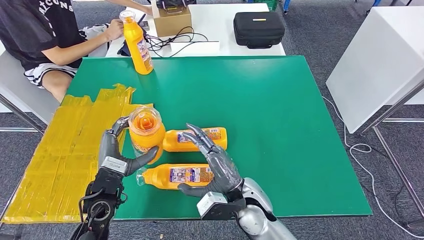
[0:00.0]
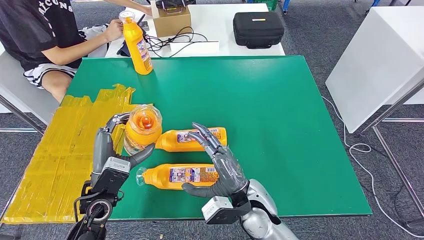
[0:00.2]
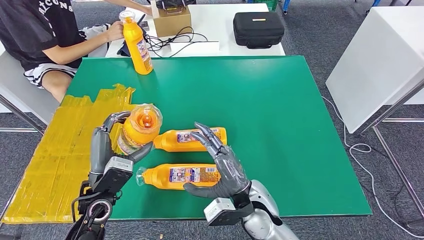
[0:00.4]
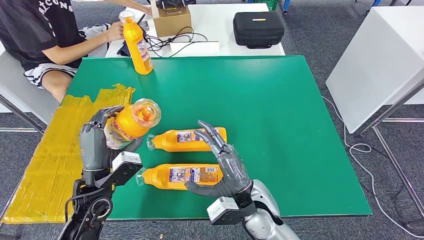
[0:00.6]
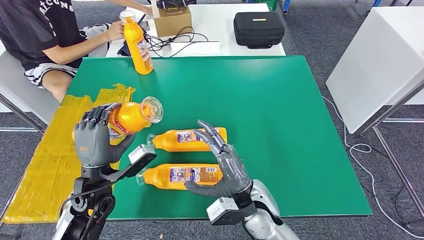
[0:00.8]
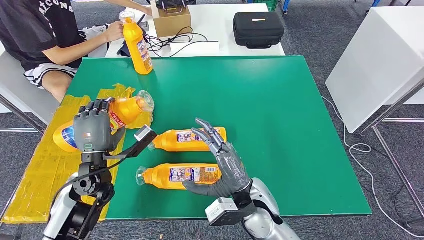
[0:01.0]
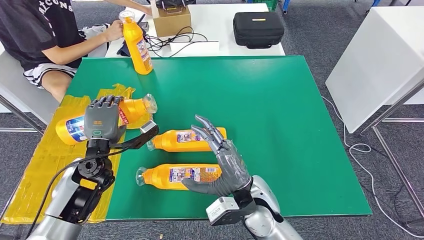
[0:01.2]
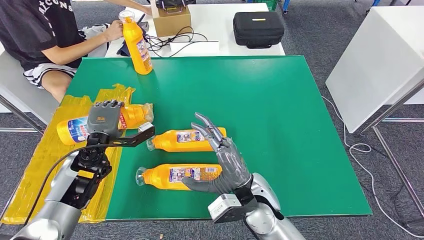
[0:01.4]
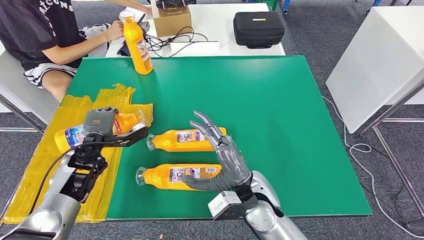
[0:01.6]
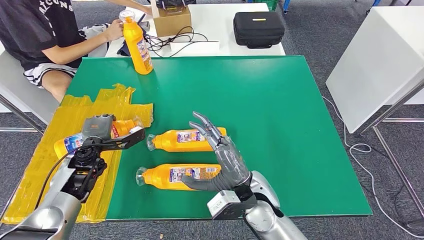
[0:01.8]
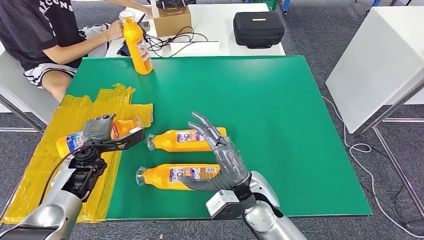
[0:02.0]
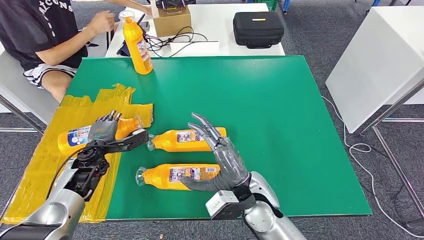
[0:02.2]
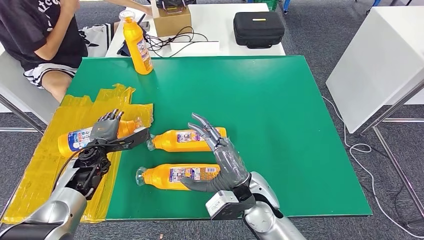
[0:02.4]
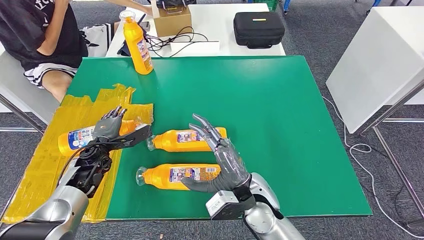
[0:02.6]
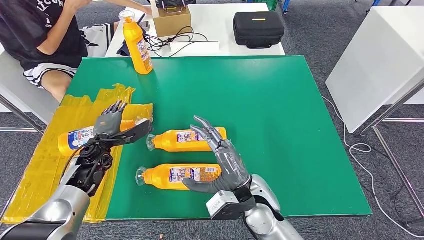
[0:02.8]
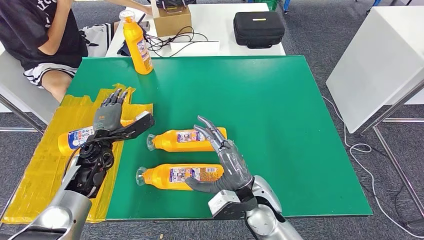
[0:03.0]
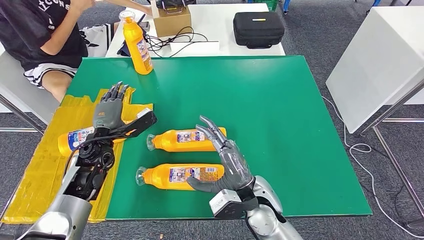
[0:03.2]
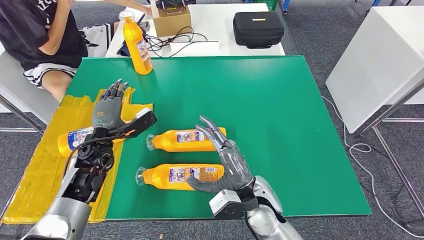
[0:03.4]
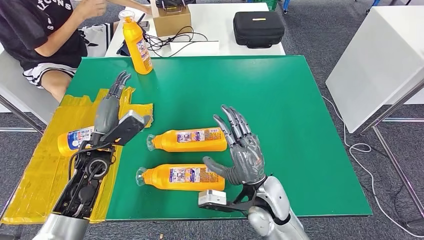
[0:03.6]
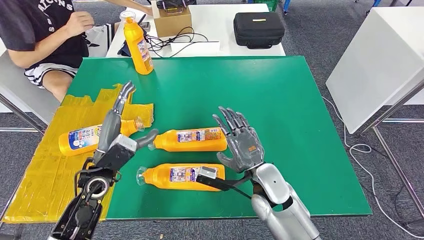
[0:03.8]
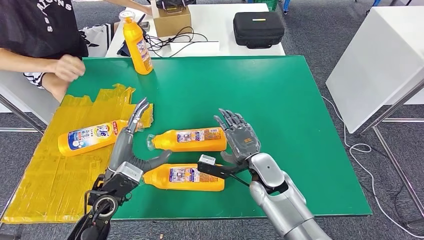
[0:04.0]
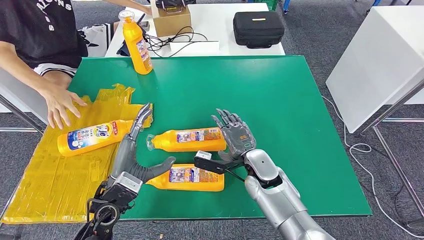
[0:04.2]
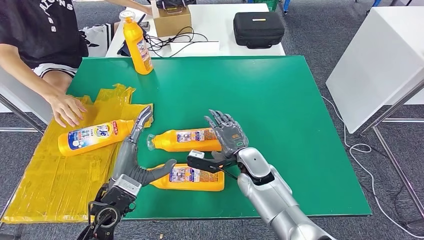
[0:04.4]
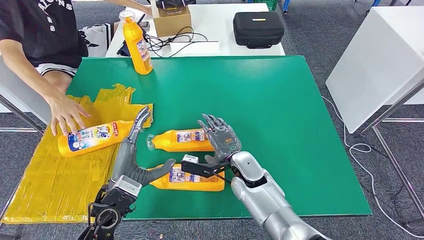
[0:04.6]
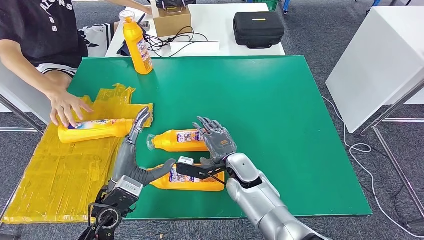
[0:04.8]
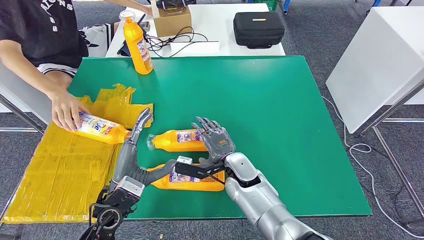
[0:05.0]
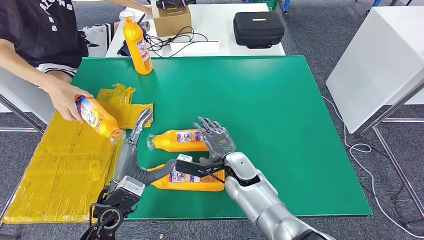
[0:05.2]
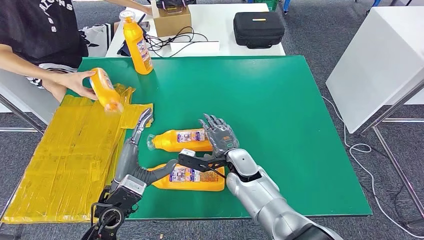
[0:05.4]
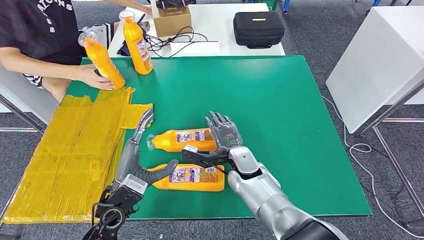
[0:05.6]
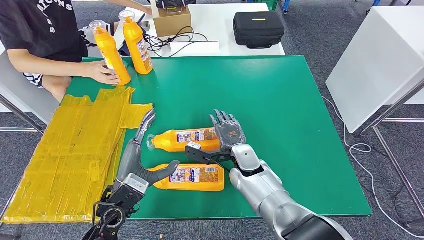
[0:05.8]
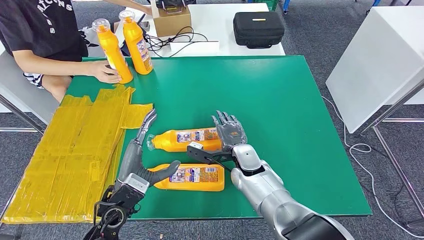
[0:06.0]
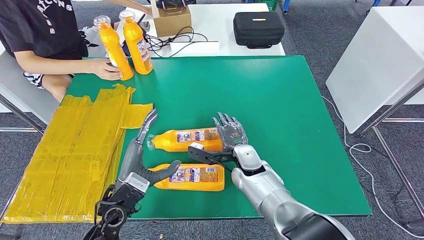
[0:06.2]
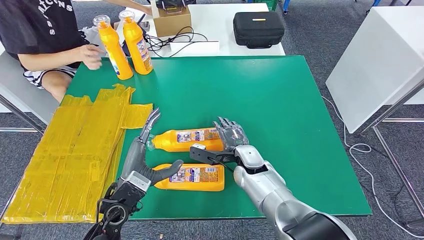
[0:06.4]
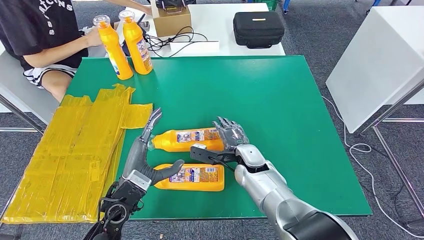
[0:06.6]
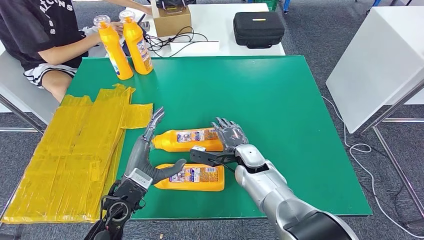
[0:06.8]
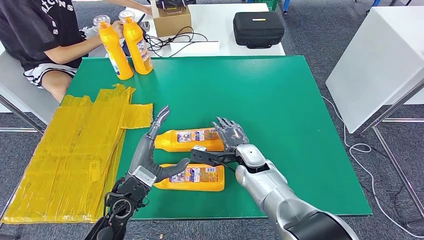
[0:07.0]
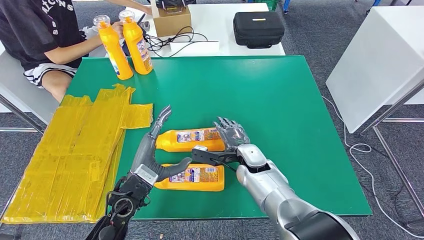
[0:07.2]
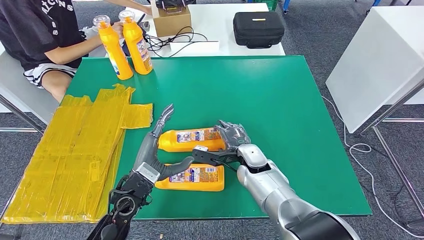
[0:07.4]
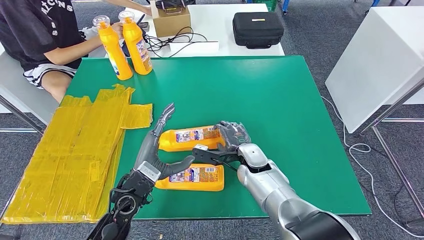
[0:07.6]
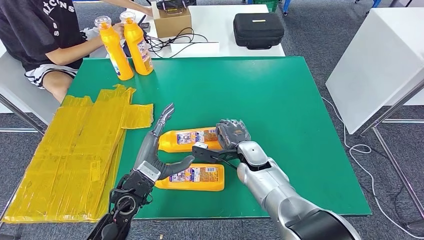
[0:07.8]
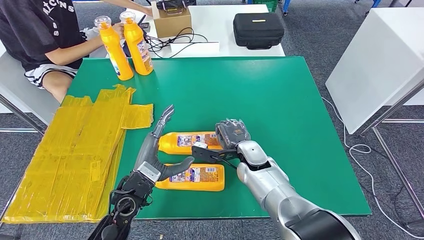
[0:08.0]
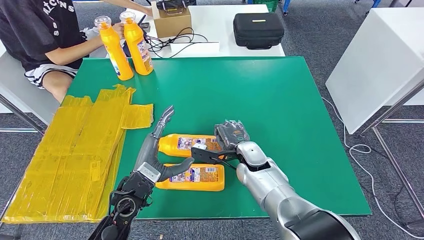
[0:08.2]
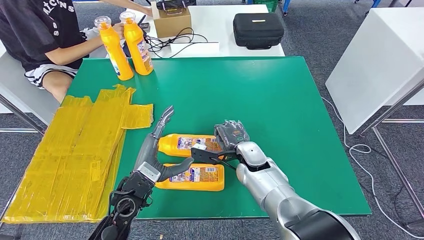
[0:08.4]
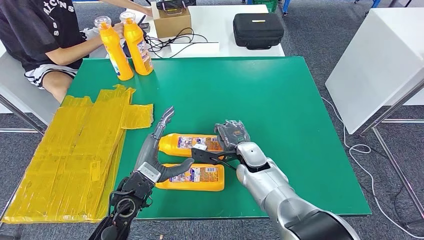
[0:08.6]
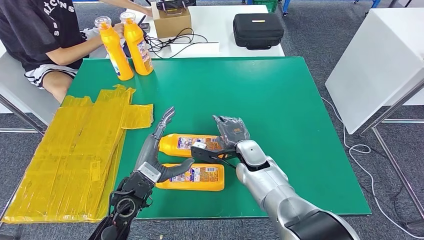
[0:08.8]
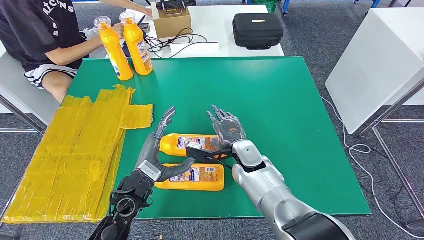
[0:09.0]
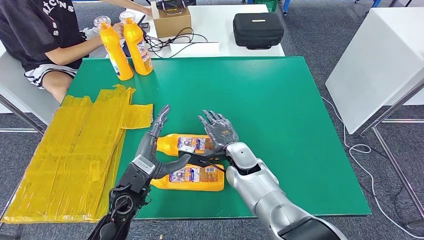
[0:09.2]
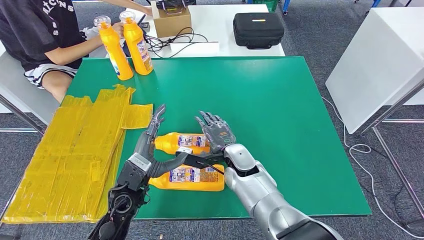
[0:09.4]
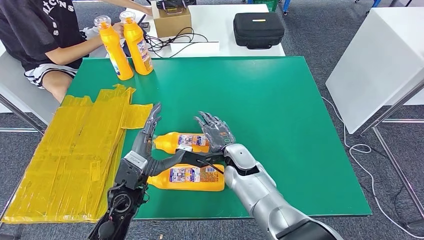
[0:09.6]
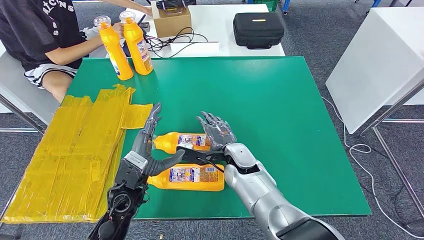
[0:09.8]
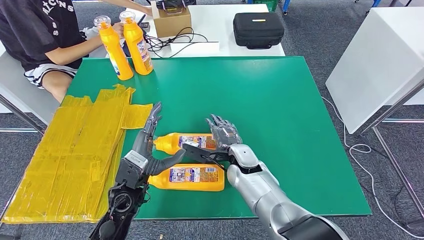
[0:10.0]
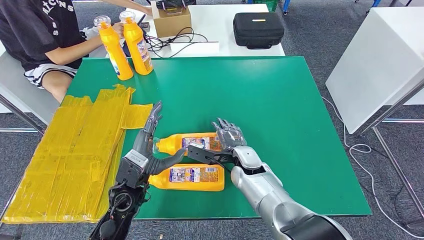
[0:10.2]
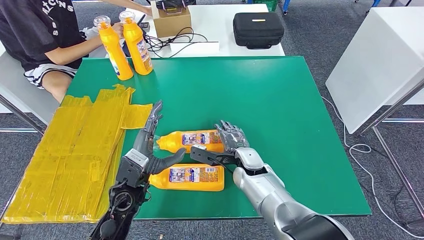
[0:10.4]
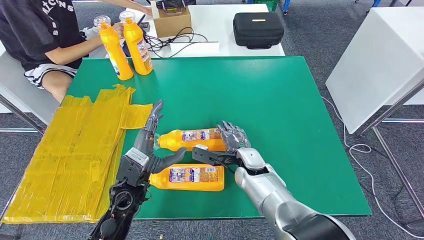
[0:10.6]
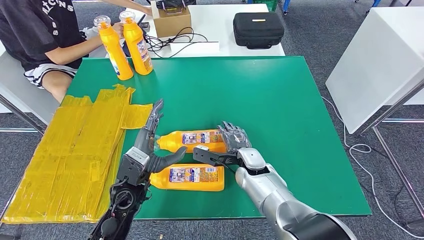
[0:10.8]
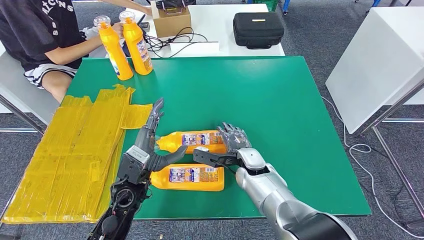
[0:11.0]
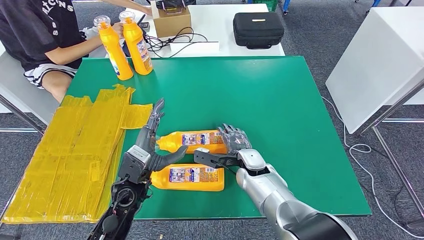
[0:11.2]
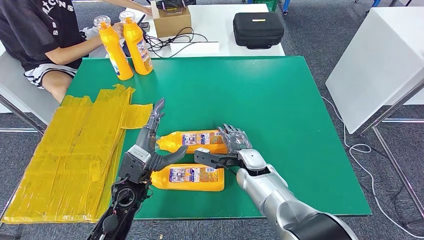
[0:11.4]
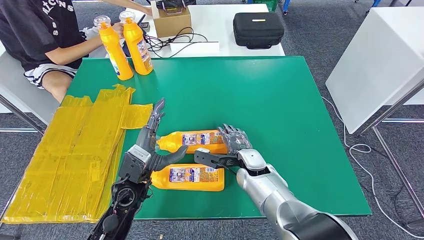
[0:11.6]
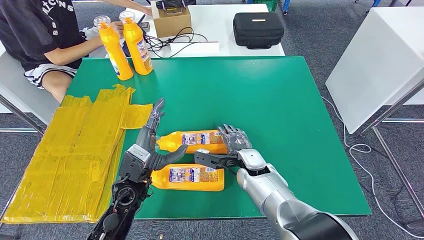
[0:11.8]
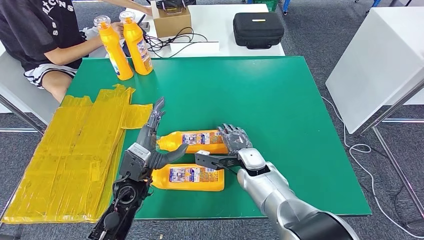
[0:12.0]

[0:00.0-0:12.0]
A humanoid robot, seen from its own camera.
Step, 0:00.0 to 0:03.8: Flip the fast-moving consumer goods bottle to the front side.
0:00.0 to 0:01.6: The left hand travels forward and to the left by roughly 15 cm.
0:04.4 to 0:10.4: There are only small adjustments of the hands.
0:10.4 to 0:12.0: There are only small adjustments of the hands.

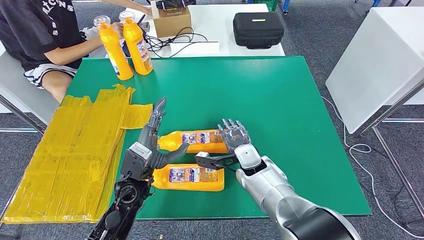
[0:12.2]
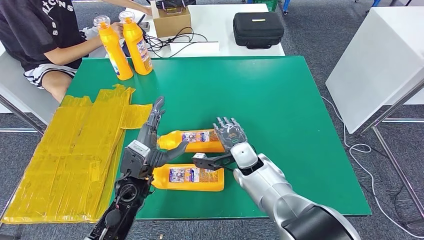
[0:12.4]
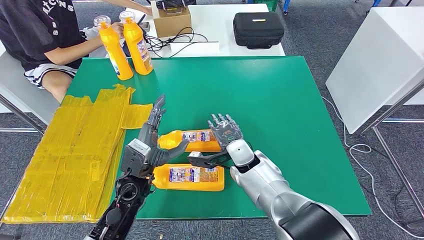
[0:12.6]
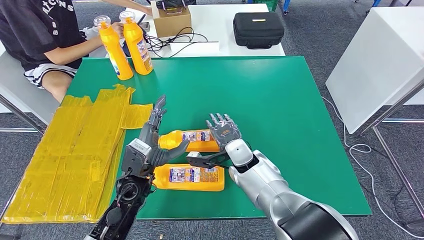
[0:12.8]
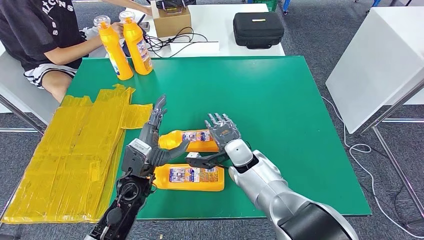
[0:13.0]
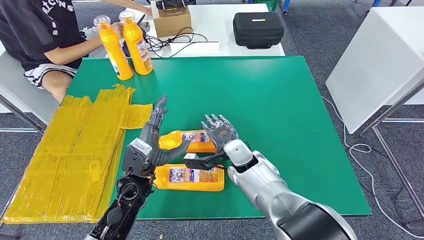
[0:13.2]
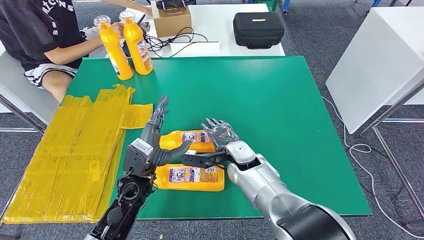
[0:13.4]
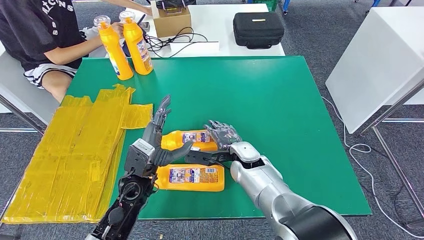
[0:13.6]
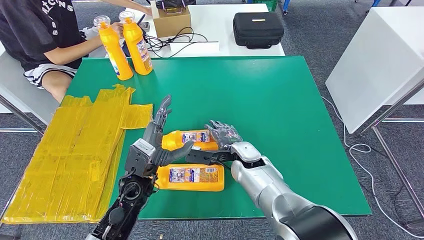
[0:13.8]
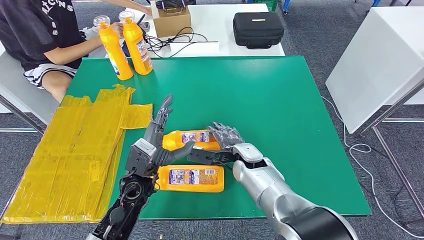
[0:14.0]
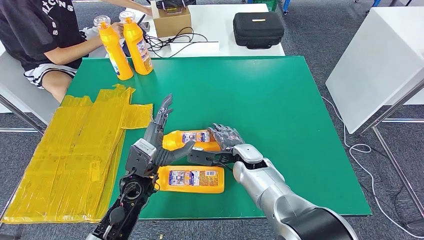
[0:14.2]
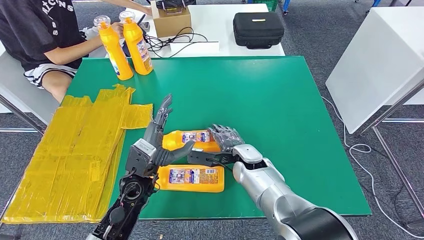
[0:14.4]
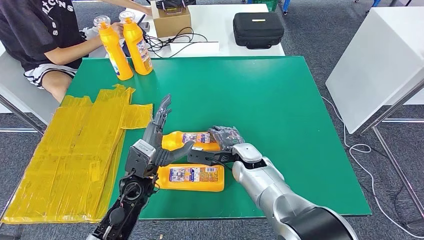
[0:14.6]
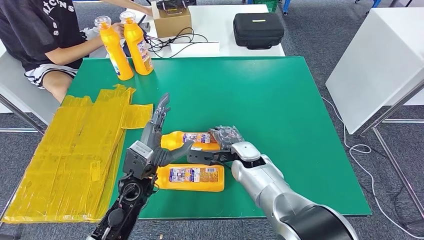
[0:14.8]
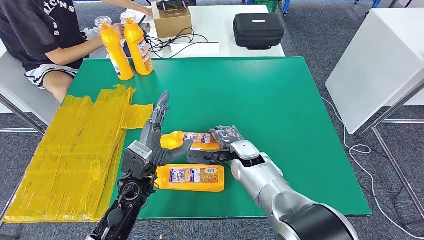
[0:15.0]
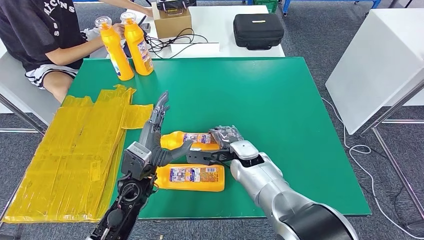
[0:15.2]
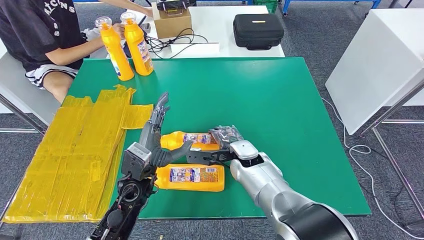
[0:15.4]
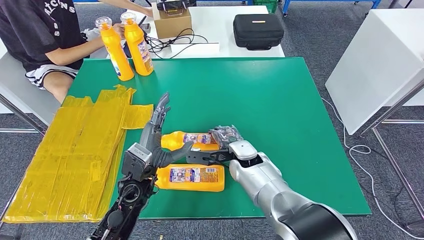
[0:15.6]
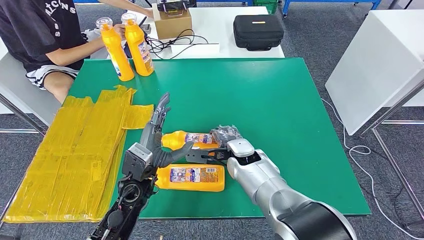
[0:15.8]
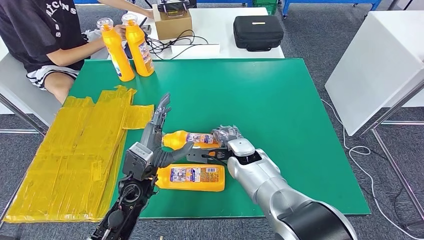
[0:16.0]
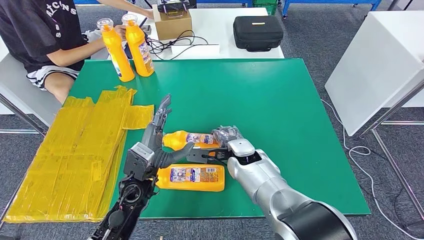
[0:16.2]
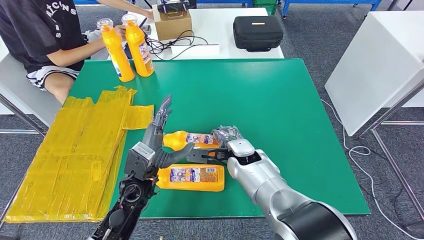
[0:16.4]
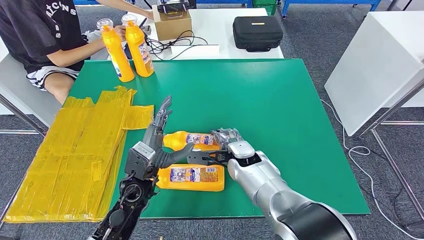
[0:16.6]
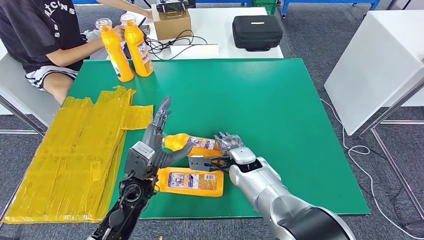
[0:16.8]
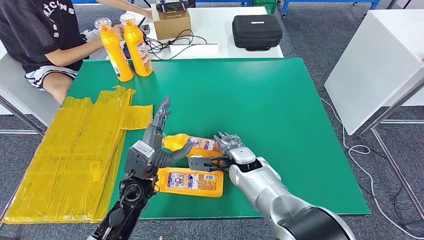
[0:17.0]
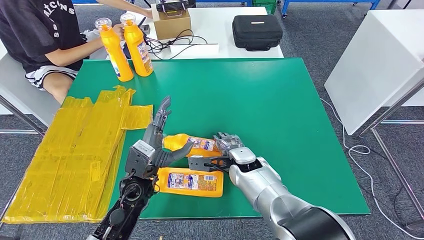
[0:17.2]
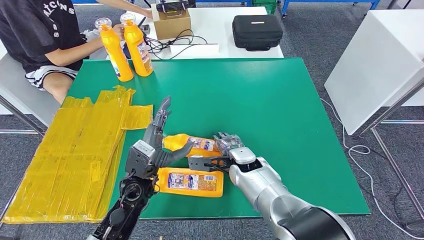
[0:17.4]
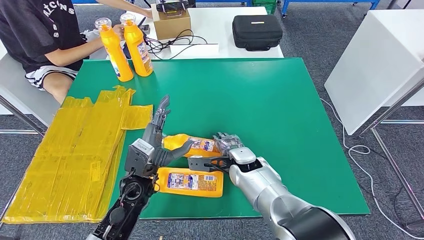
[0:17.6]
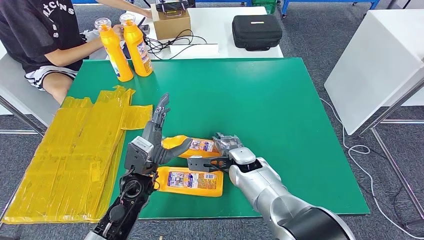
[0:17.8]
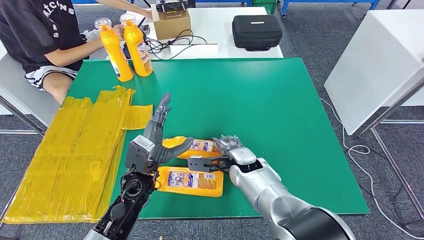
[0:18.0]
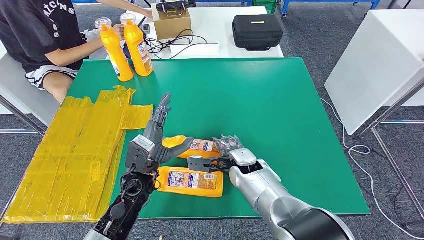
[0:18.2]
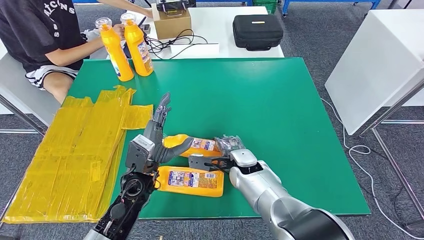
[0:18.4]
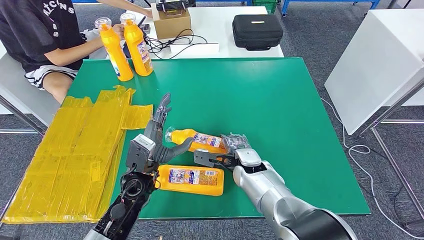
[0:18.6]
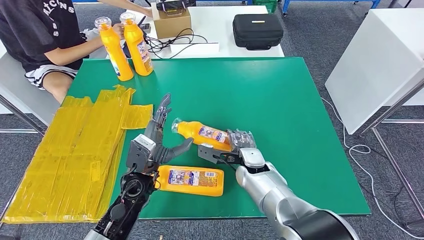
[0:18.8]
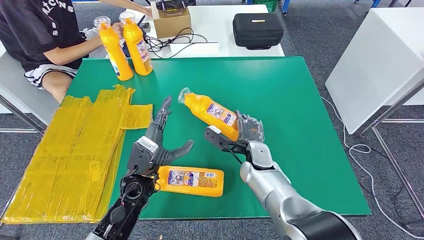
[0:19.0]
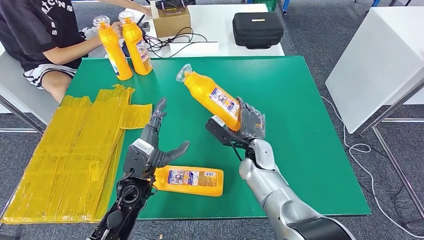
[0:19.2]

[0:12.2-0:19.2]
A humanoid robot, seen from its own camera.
0:13.6 to 0:17.8: The hands move only a little.
